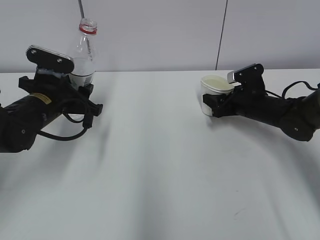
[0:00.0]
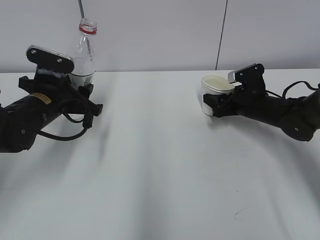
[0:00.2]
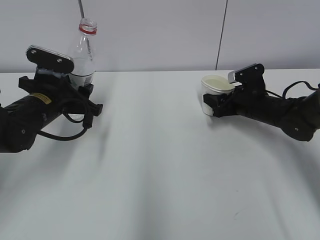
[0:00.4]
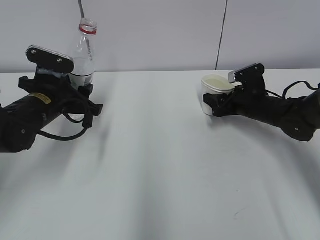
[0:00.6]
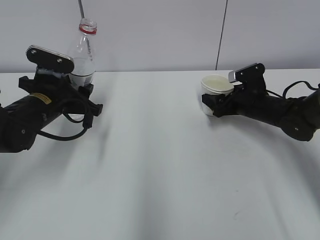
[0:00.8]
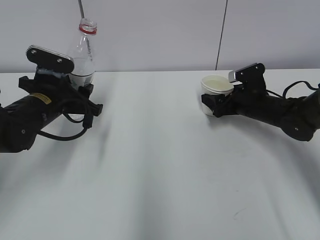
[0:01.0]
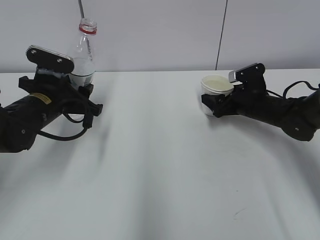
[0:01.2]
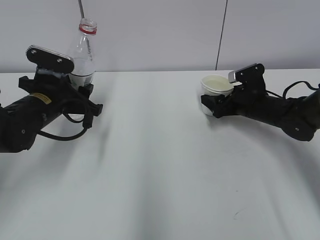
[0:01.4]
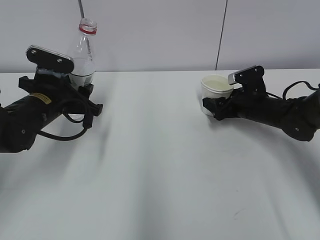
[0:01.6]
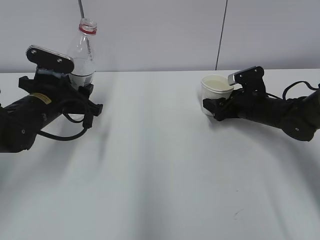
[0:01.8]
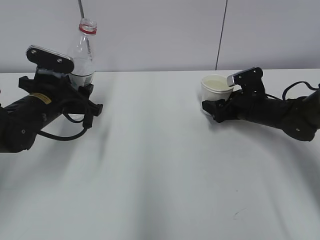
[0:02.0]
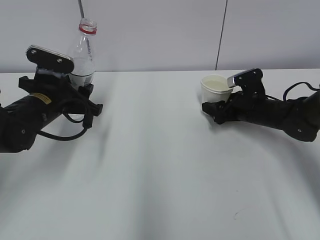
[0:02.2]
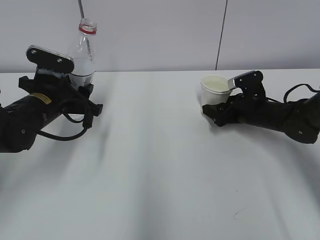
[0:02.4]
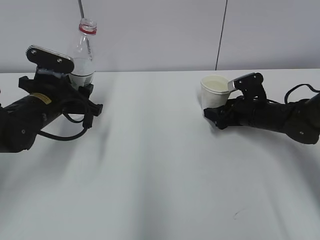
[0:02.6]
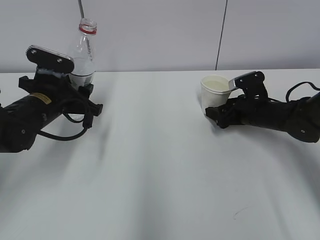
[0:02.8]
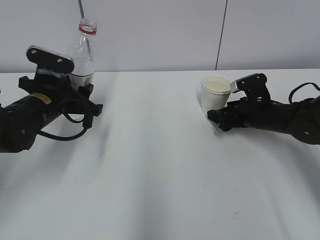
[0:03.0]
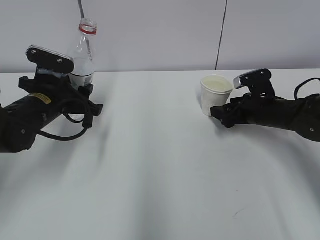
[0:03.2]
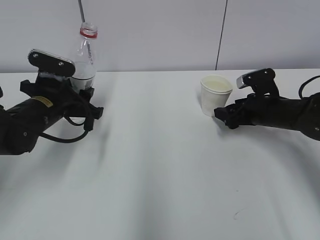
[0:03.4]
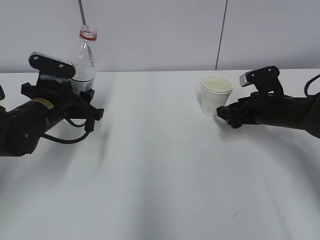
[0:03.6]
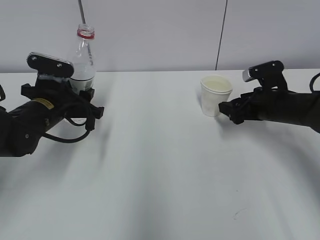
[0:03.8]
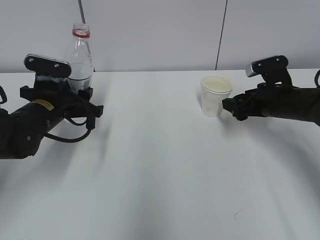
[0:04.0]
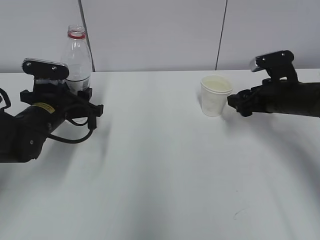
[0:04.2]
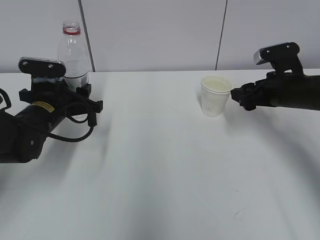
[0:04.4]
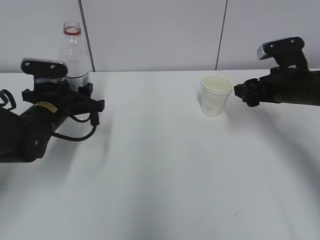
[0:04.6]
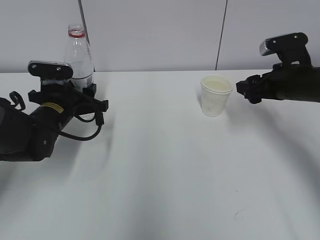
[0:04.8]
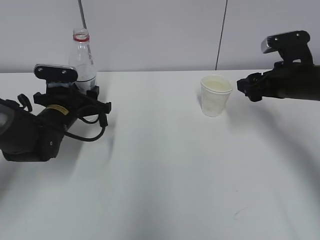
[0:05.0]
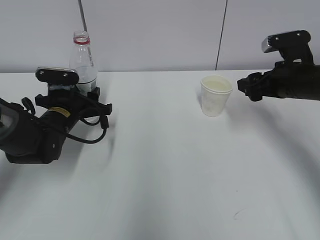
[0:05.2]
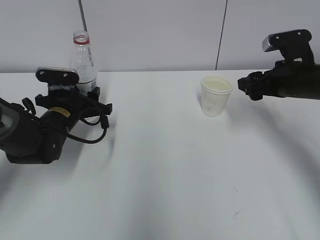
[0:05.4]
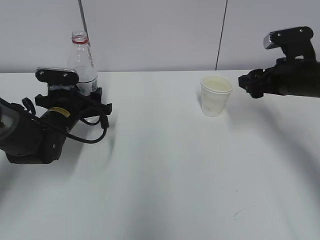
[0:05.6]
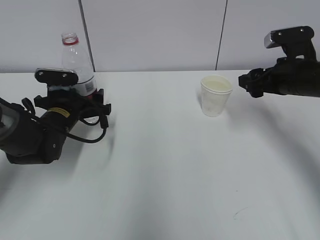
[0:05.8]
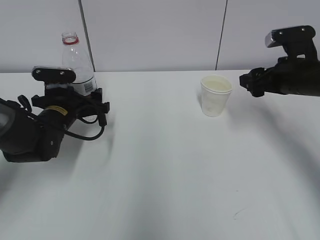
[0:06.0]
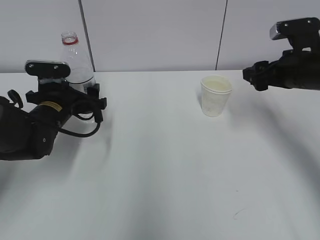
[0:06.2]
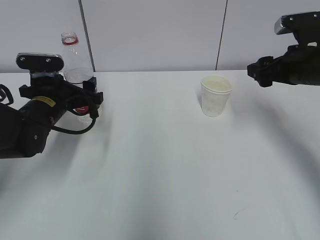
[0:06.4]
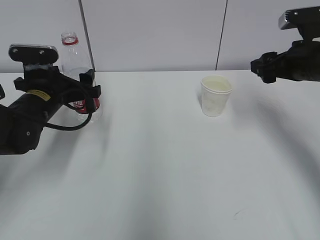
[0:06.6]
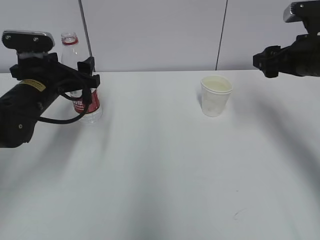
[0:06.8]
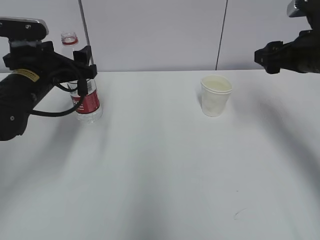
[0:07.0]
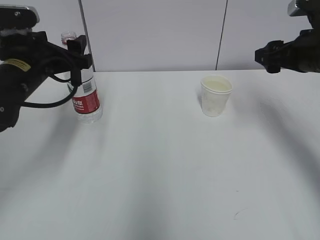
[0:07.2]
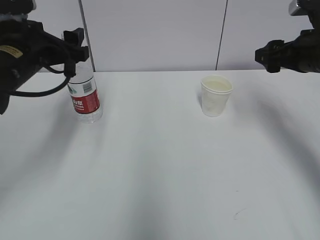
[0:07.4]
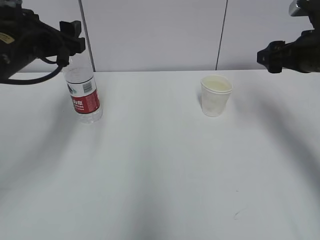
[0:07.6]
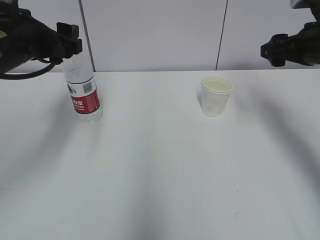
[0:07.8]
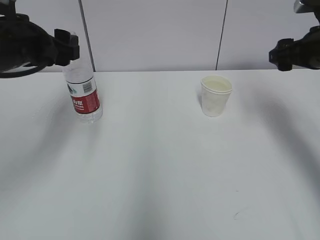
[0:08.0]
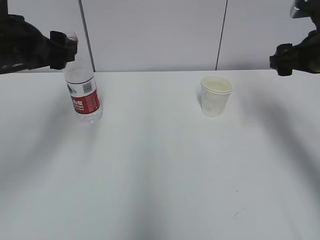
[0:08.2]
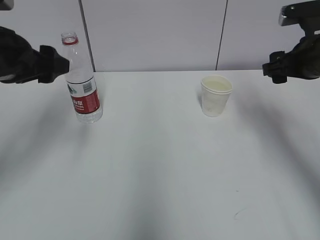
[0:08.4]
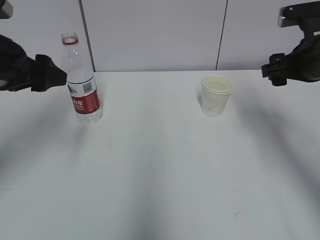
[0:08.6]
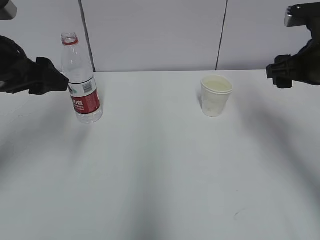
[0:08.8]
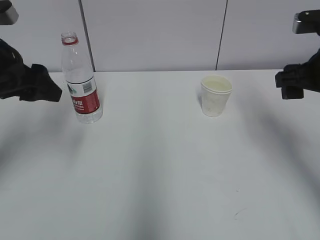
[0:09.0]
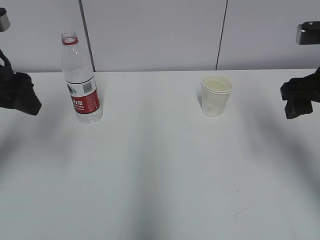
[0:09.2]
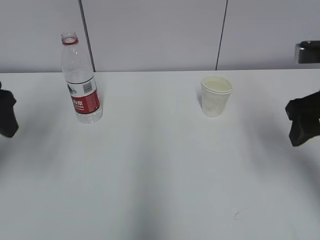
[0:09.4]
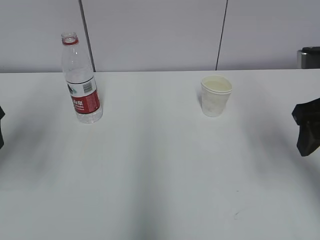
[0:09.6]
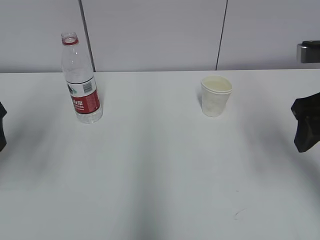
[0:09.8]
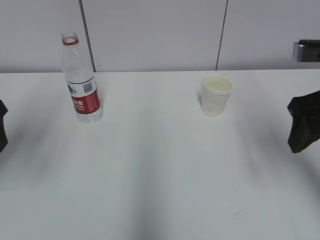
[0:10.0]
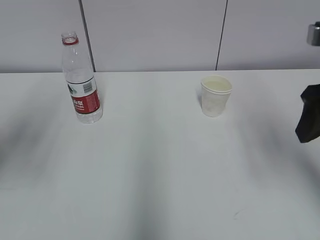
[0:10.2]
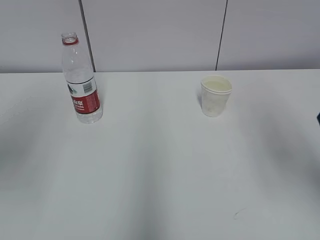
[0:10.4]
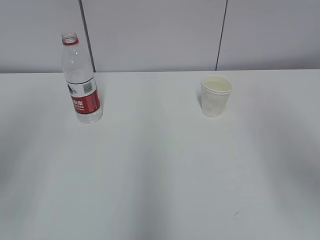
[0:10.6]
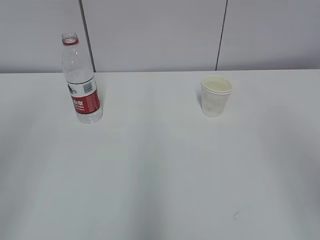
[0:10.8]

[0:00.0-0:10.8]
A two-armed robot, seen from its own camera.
0:00.0 to 0:01.6: The right gripper opens its fingers.
0:01.6 to 0:03.0: There are only small adjustments of the grippers.
0:03.0 to 0:04.6: The right gripper shifts some 10 cm upward.
0:04.6 to 0:06.2: The left gripper opens.
0:06.2 to 0:07.8: The right gripper changes place by about 5 cm; the left gripper goes some 15 cm upward.
0:07.8 to 0:09.2: The right gripper heads backward, covering some 10 cm, while the left gripper travels to the left by approximately 5 cm.
0:09.2 to 0:10.8: The right gripper shifts about 20 cm backward and upward. Meanwhile the left gripper shifts approximately 20 cm backward.

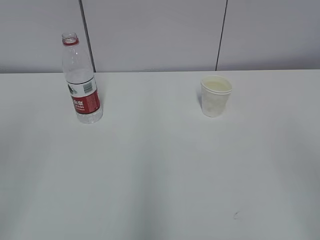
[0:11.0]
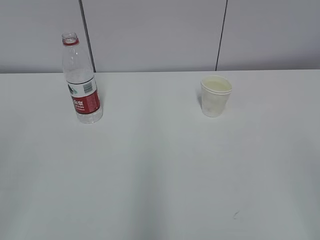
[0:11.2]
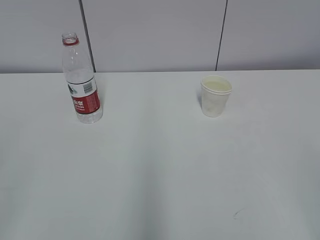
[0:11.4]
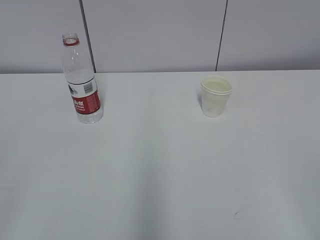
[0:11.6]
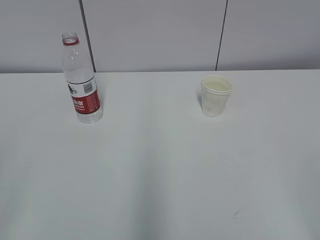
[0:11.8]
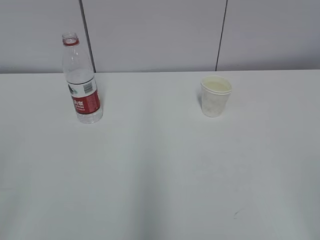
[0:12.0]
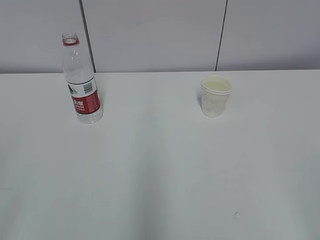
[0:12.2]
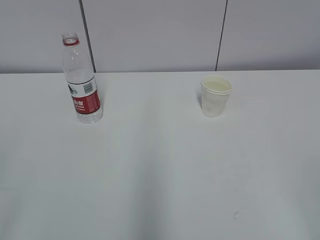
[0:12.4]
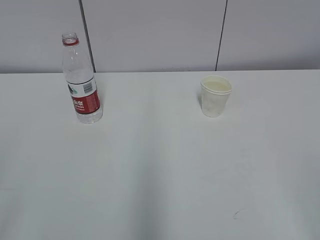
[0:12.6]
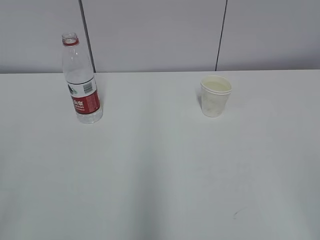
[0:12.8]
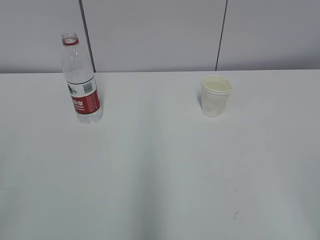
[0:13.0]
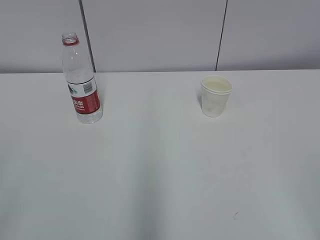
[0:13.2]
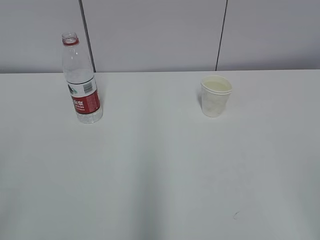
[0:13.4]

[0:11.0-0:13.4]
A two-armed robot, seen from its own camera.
0:12.2 to 0:13.4: The two grippers keep their place.

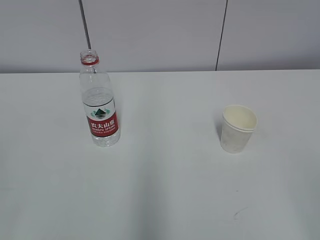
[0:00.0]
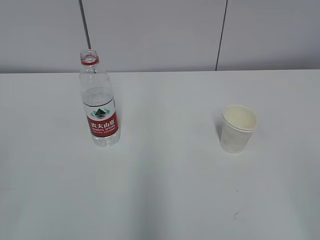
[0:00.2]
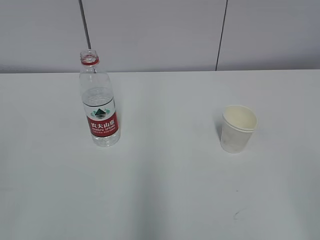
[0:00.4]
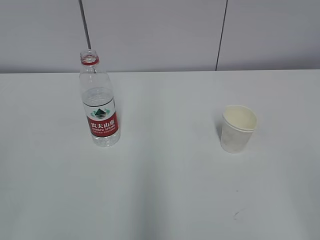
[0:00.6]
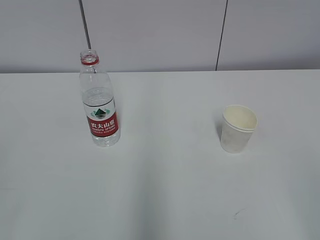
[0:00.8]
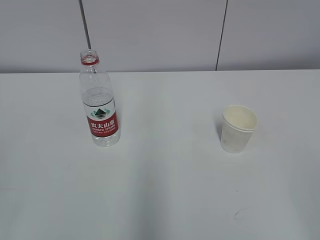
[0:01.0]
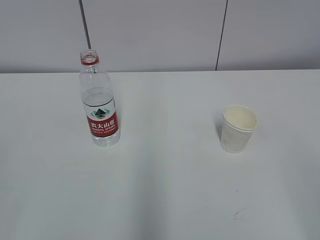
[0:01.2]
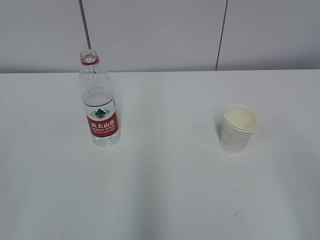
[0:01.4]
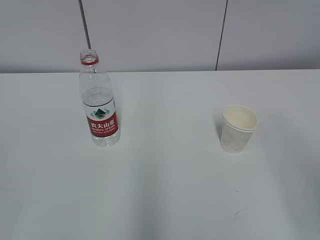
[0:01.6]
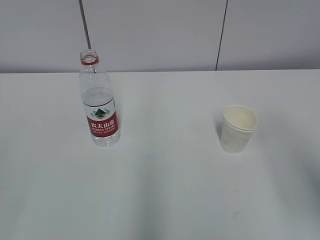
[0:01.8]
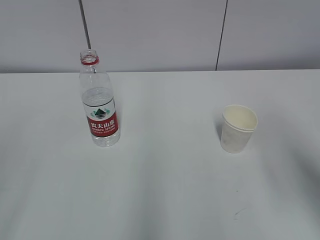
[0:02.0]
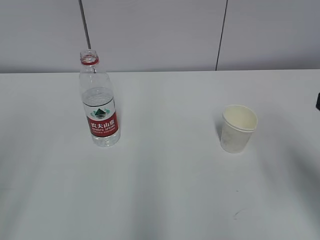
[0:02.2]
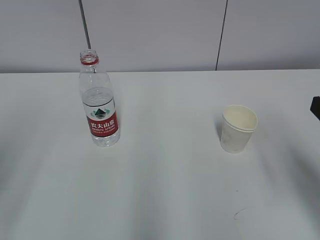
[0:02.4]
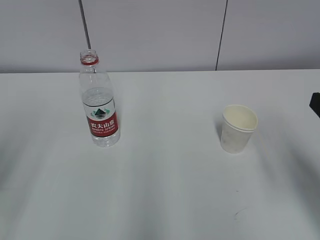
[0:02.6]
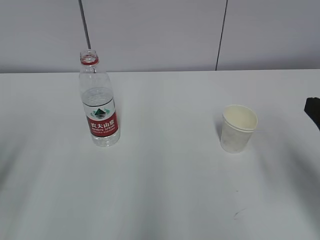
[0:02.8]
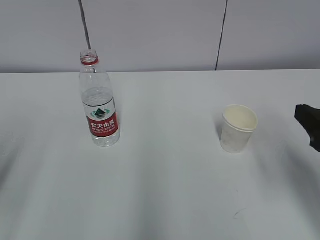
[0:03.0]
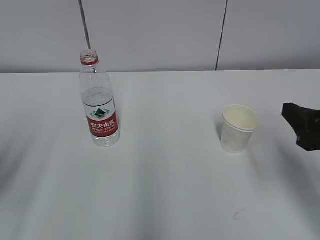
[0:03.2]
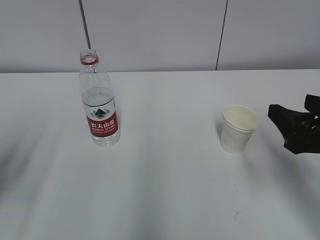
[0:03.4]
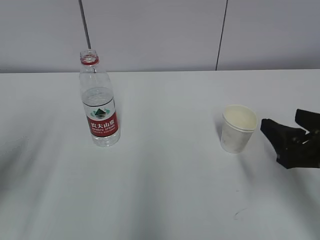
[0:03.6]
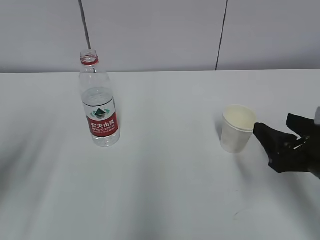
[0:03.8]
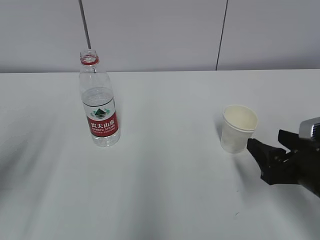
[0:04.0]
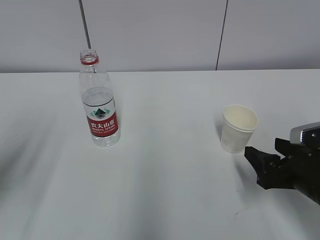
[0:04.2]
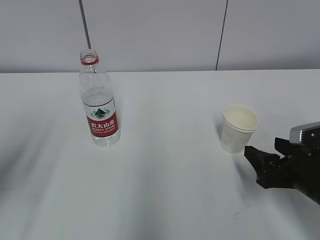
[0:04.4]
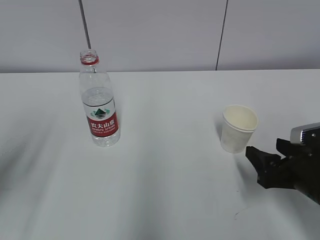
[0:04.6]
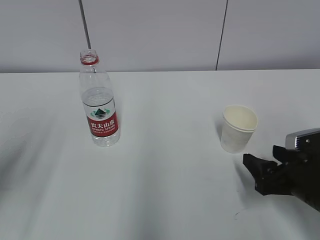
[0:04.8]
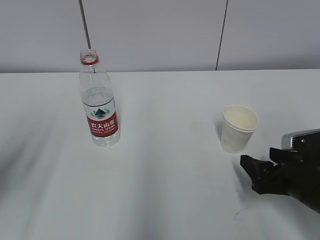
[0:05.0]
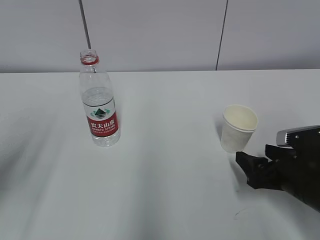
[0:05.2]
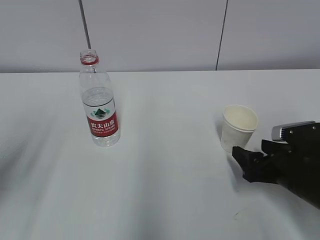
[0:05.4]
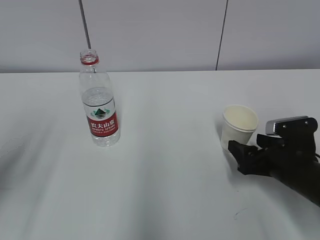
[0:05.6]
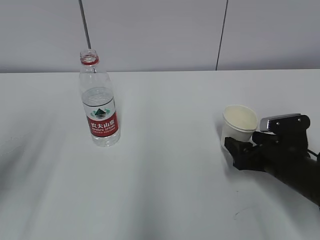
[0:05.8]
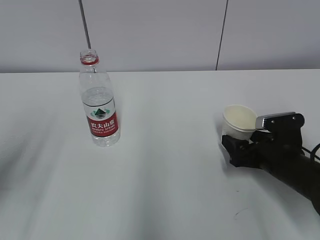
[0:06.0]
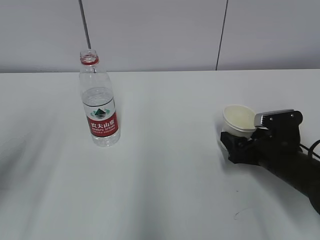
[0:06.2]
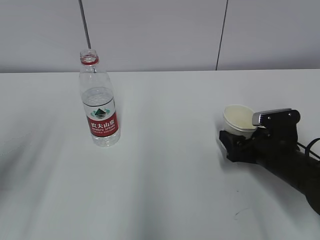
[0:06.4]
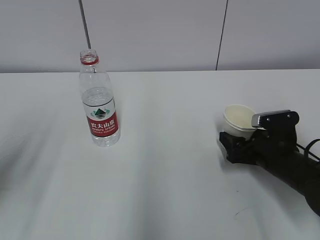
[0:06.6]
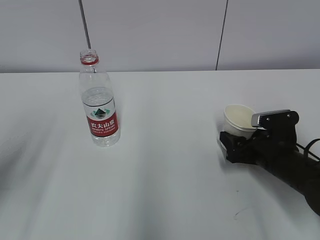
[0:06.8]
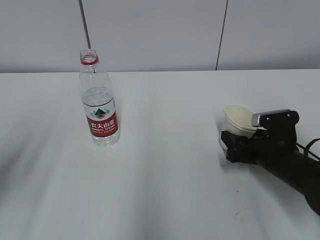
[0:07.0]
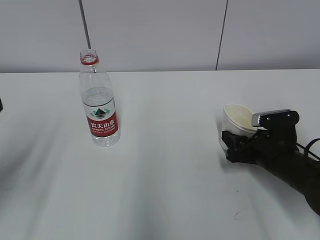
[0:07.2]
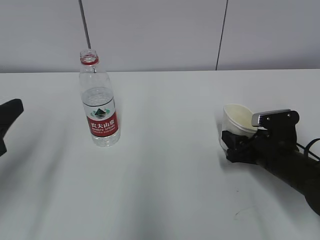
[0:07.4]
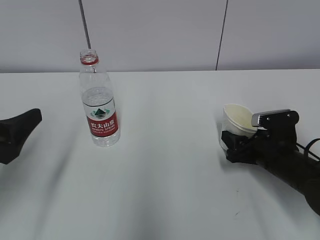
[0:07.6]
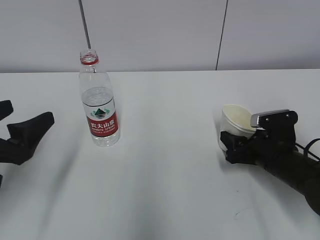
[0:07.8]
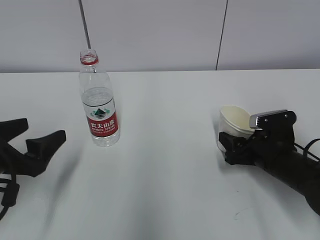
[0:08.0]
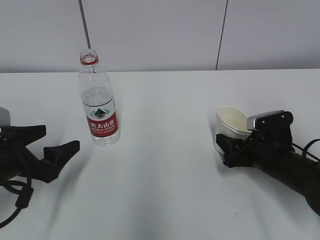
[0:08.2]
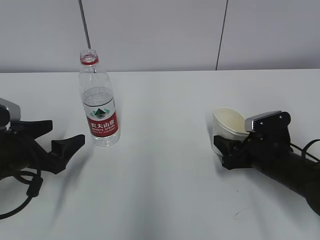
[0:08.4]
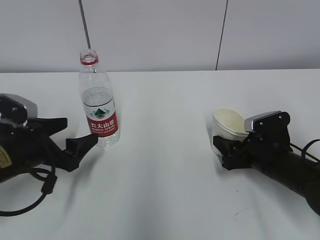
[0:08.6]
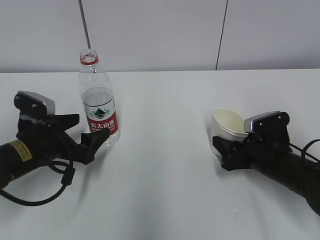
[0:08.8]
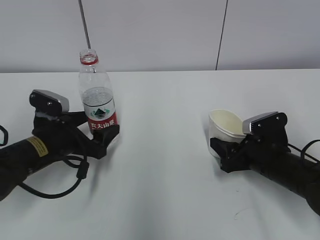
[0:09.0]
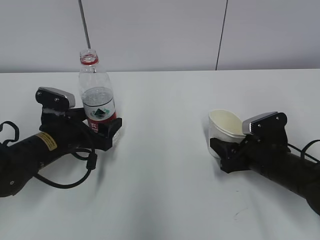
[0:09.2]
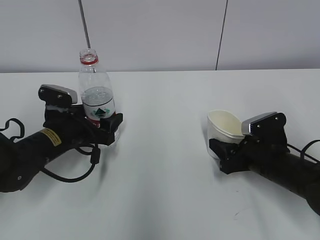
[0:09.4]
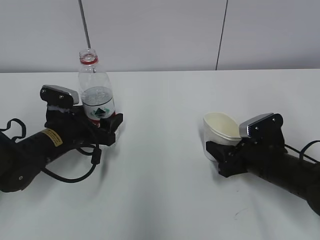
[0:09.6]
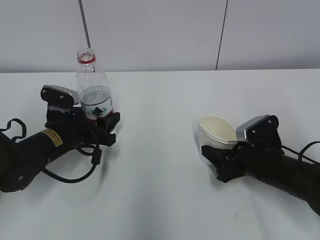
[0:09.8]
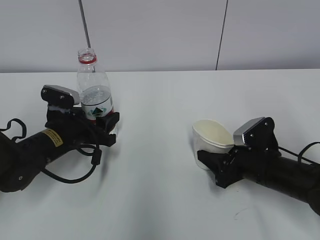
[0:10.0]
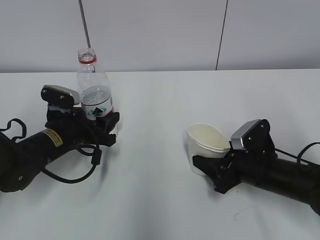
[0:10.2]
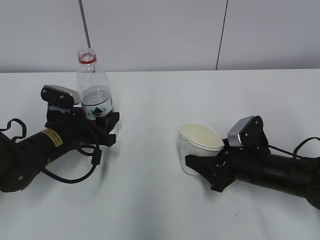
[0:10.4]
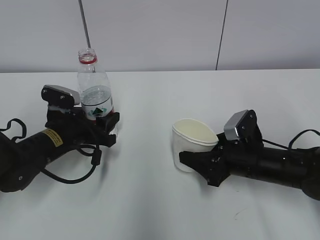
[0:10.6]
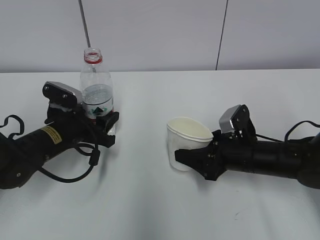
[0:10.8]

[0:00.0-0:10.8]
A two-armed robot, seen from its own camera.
Step, 0:00.0 to 0:06.2: Grab the paper cup with the right hand.
Step, 0:06.4 to 0:08.6: Grab the water bottle with the left hand.
0:01.6 to 0:03.0: The right gripper travels forward and downward by some 15 cm.
0:03.0 to 0:04.6: The right gripper shifts roughly 10 cm downward.
0:04.6 to 0:06.2: The right gripper moves forward, some 10 cm.
0:06.2 to 0:07.8: The left gripper ends up approximately 5 cm from where it was, and opens, while the right gripper closes up.
0:07.8 to 0:09.2: The left gripper goes roughly 15 cm forward, downward and to the right.
0:09.2 to 0:10.8: The left gripper closes its fingers.
